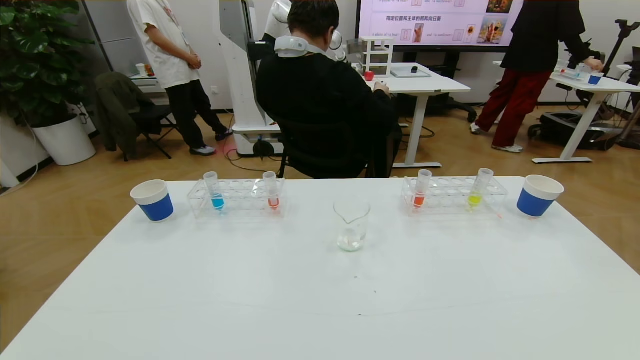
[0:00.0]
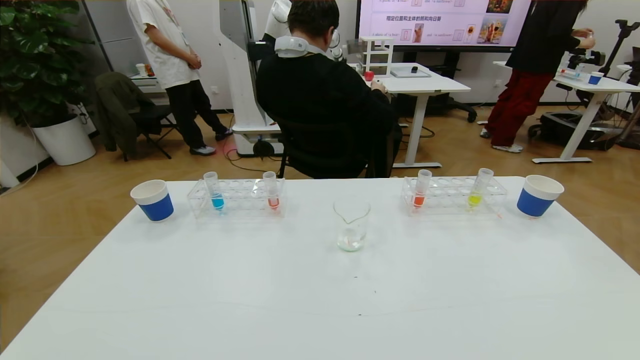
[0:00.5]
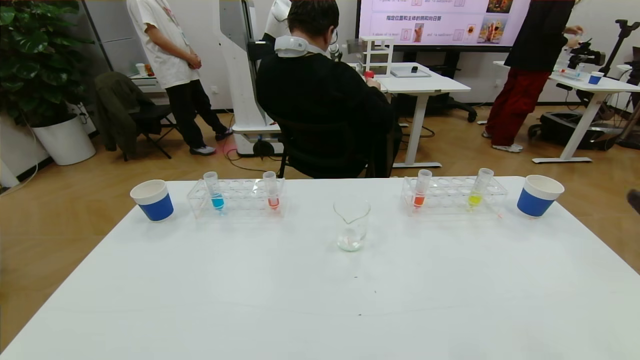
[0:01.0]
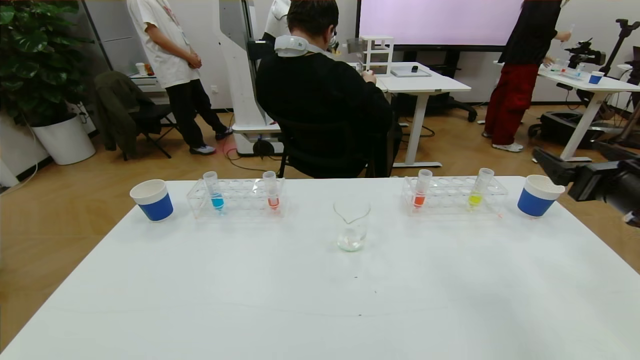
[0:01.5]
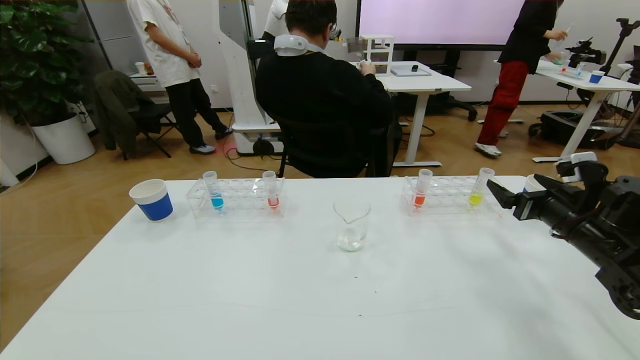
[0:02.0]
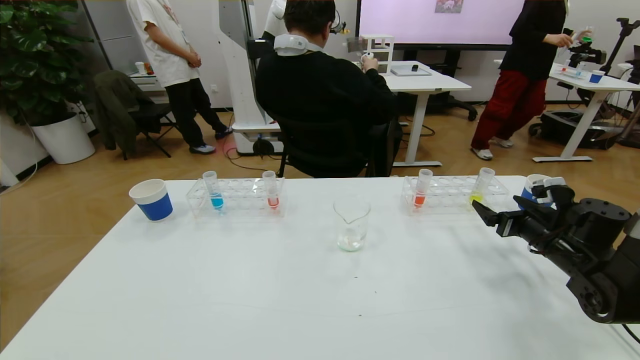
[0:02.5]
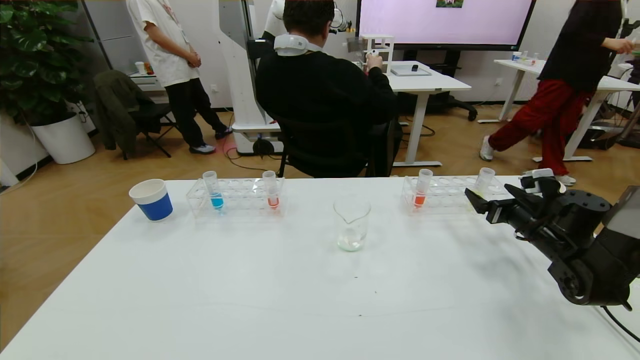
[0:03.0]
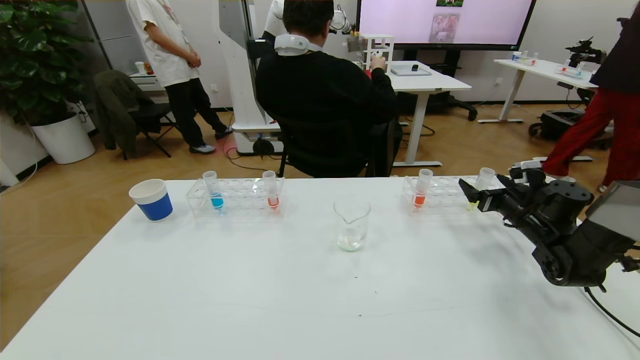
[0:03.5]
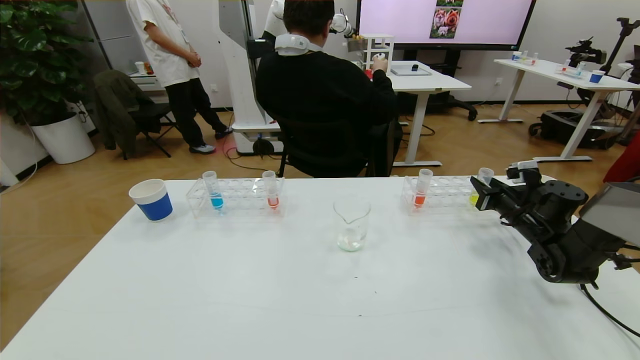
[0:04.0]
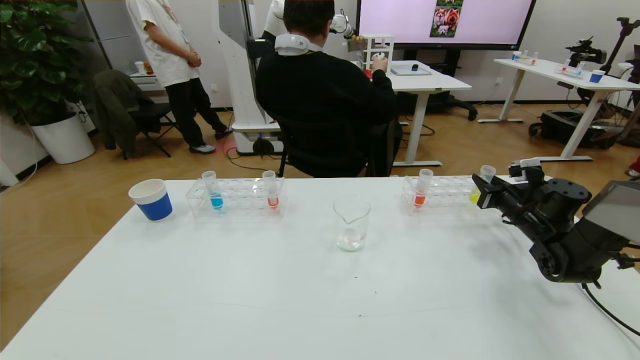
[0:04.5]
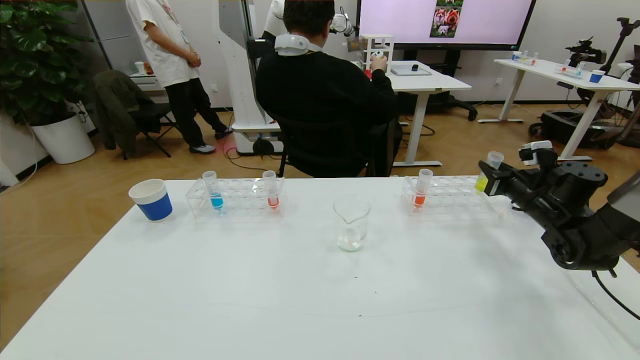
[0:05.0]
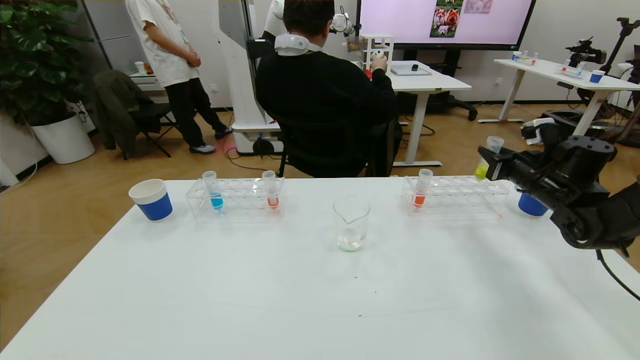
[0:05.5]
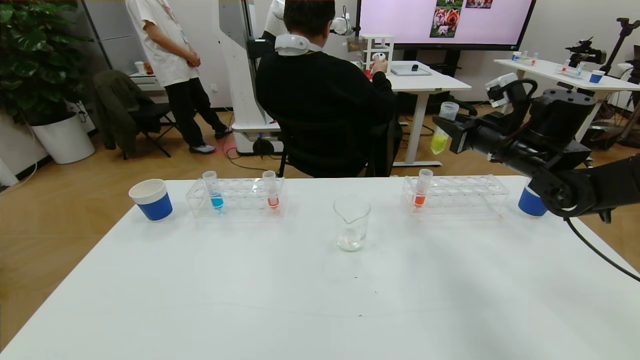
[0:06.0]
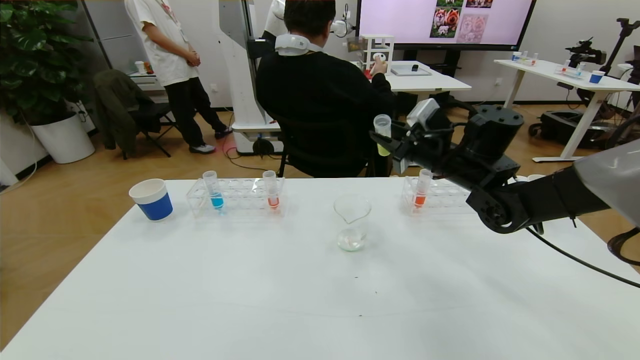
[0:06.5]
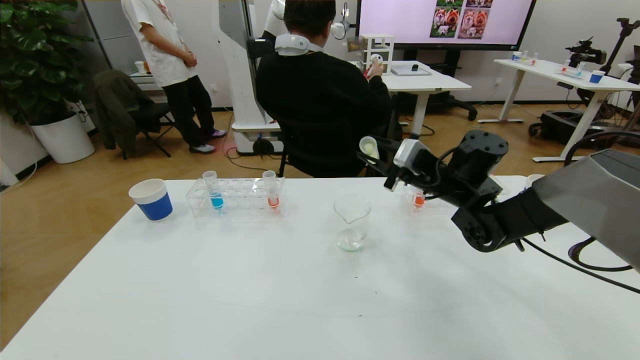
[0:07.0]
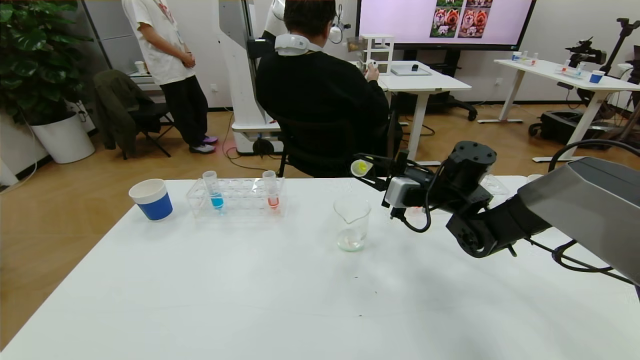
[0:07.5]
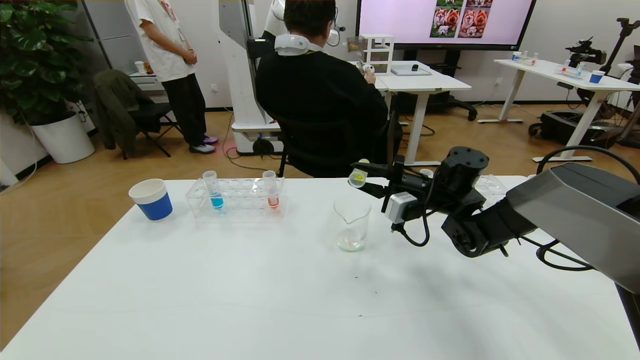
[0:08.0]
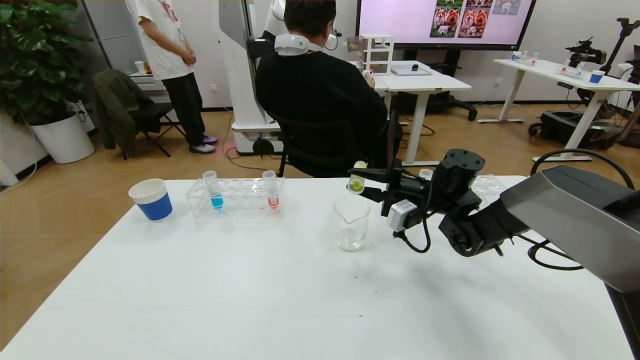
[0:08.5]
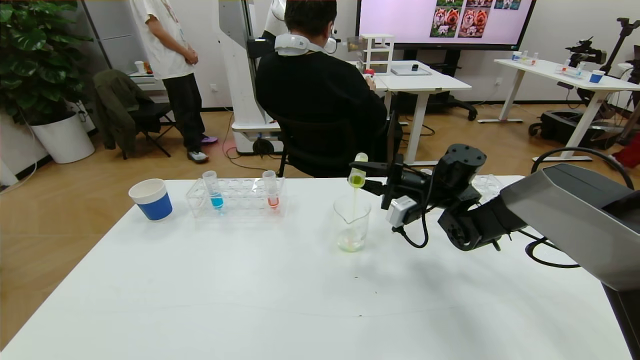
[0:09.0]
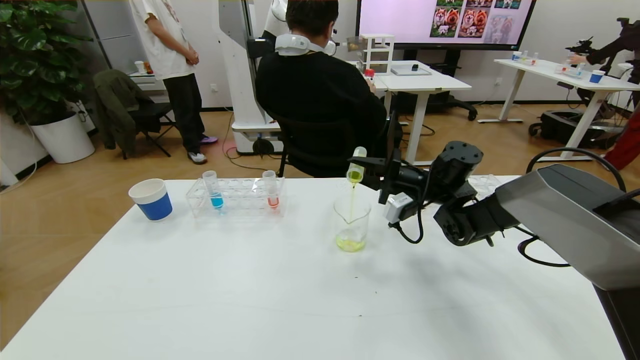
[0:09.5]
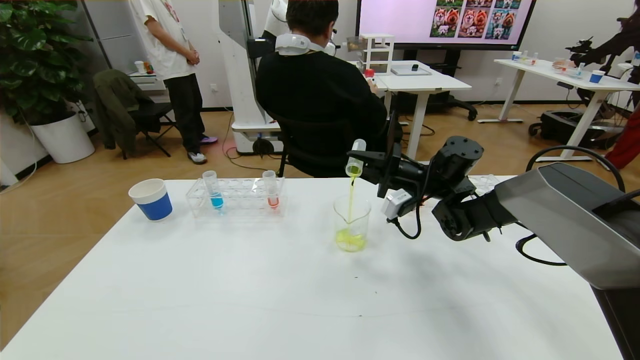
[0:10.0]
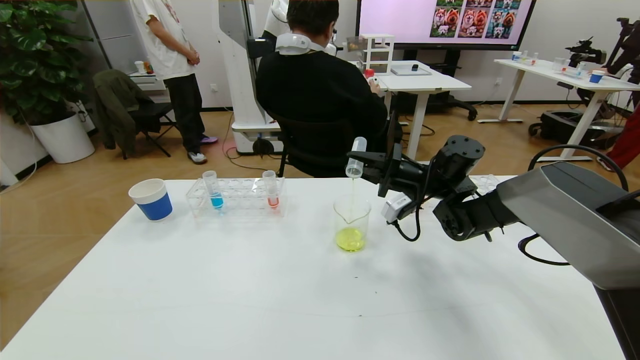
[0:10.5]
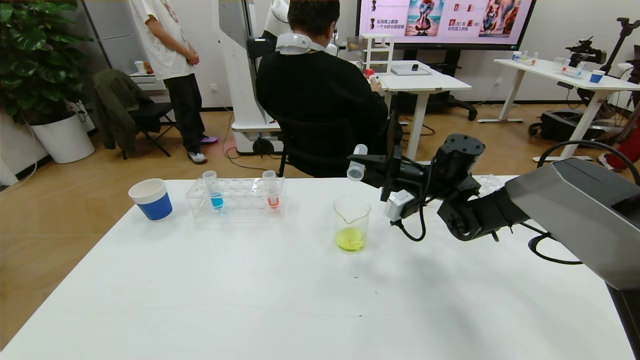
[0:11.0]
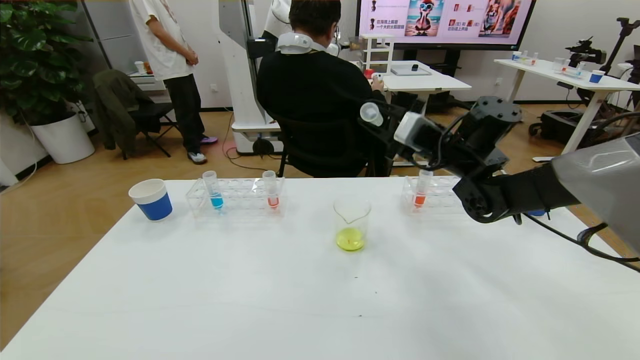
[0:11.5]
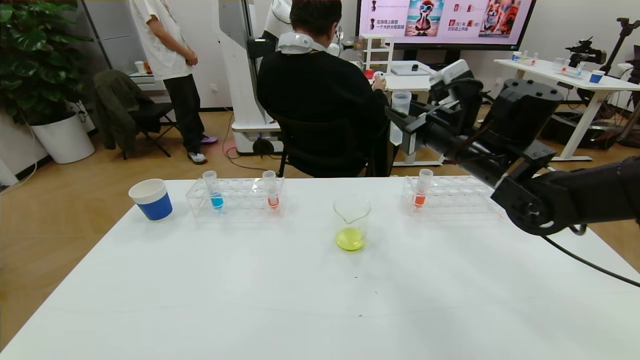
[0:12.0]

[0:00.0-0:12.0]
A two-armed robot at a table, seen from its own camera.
Task of the whole recording: pick up the test tube with yellow pigment and the test tube with blue pigment by grippers and pour them into the beaker.
0:00.0 to 0:02.0: The right gripper is displaced forward by about 35 cm.
0:02.0 to 0:04.0: The right gripper travels forward and downward by about 10 cm, and closes up.
0:04.0 to 0:06.0: The right gripper travels upward and to the left by roughly 20 cm.
0:06.0 to 0:08.0: The right gripper shifts roughly 15 cm to the left and downward.
0:08.0 to 0:10.0: There are only small adjustments of the grippers.
0:10.0 to 0:12.0: The right gripper travels upward and backward by roughly 15 cm.

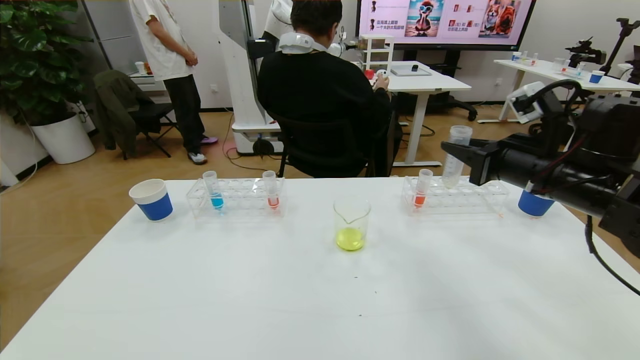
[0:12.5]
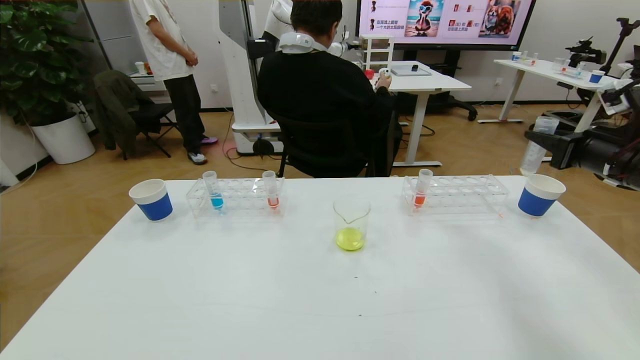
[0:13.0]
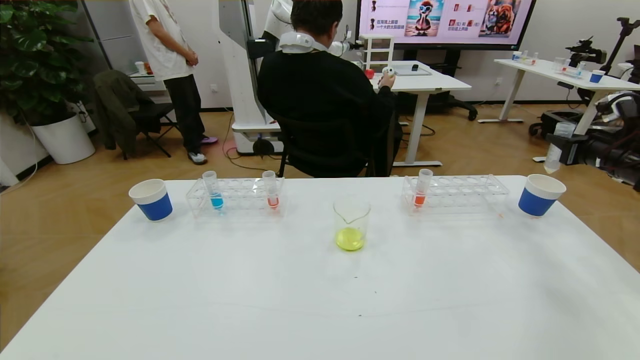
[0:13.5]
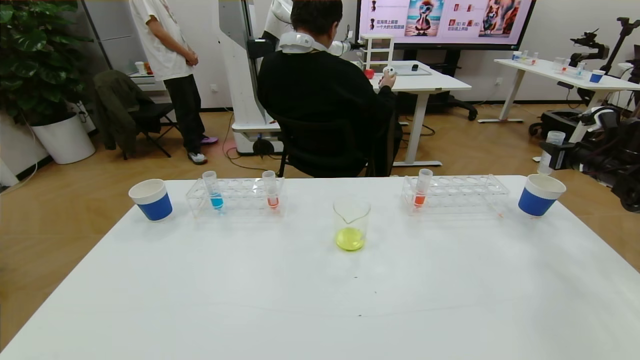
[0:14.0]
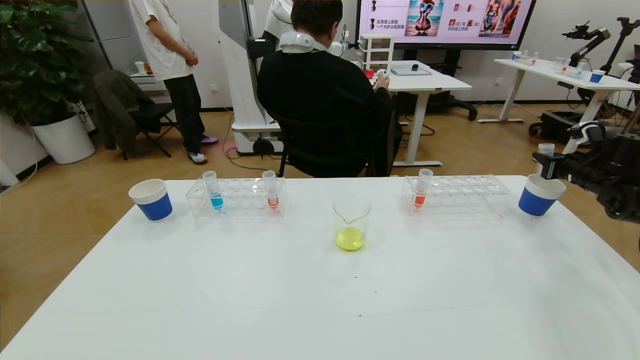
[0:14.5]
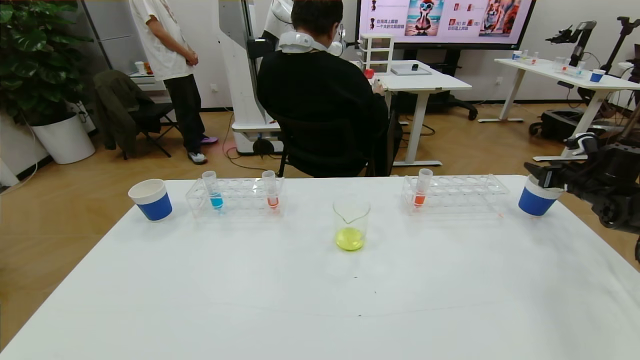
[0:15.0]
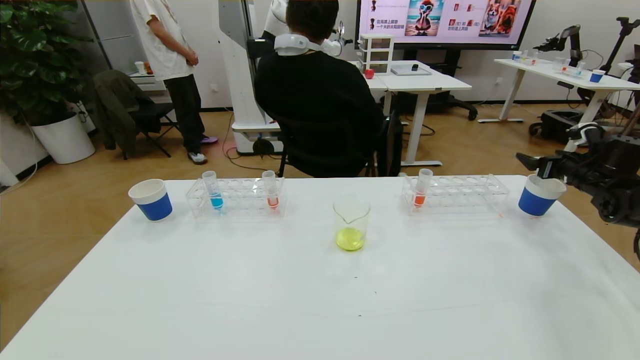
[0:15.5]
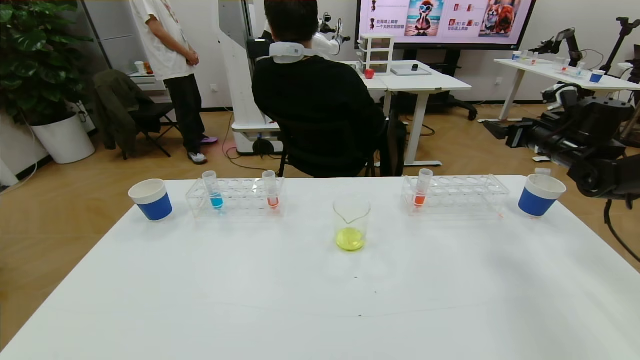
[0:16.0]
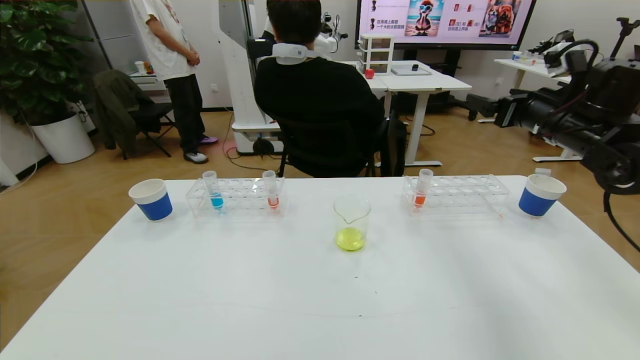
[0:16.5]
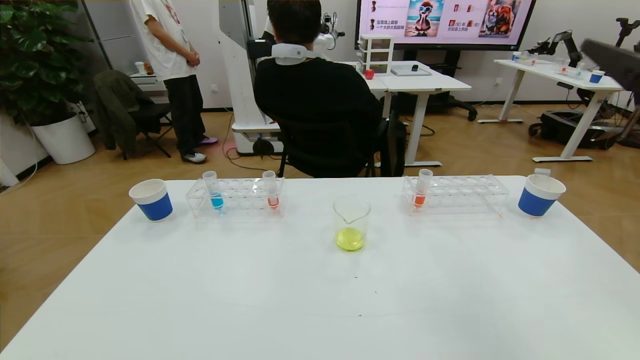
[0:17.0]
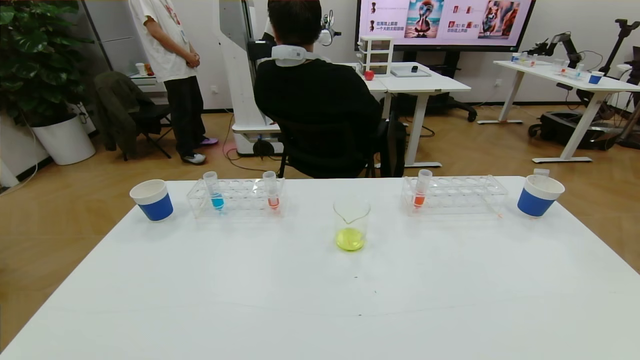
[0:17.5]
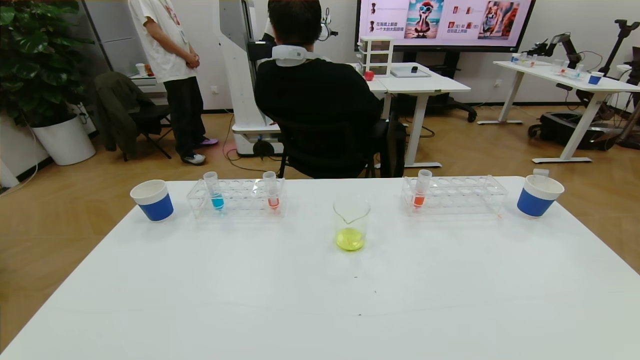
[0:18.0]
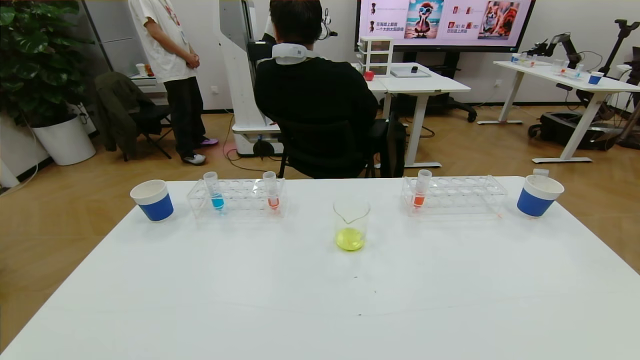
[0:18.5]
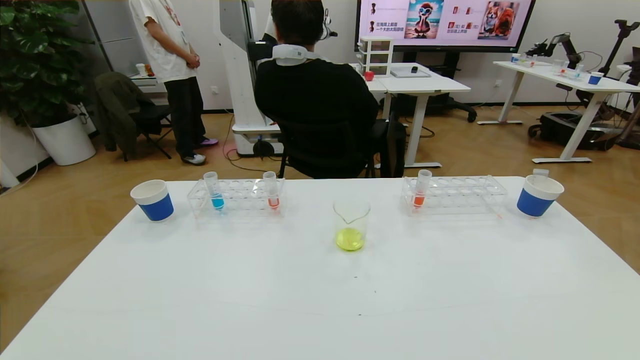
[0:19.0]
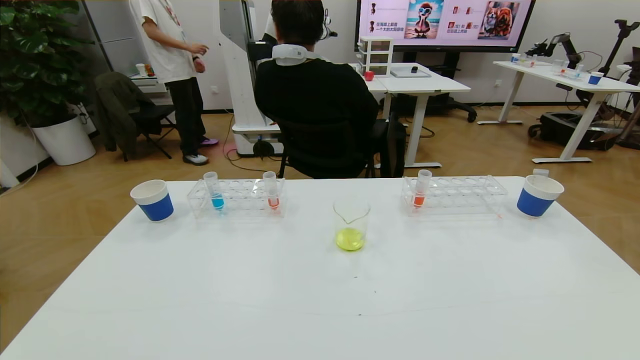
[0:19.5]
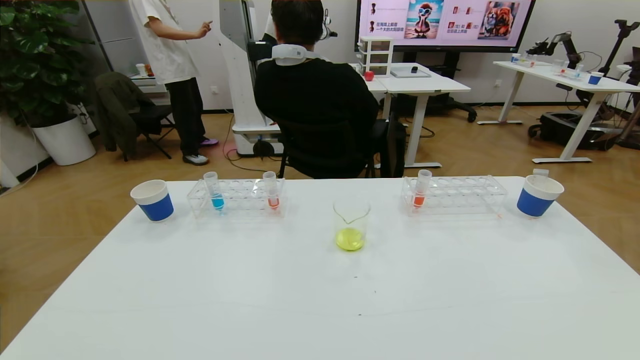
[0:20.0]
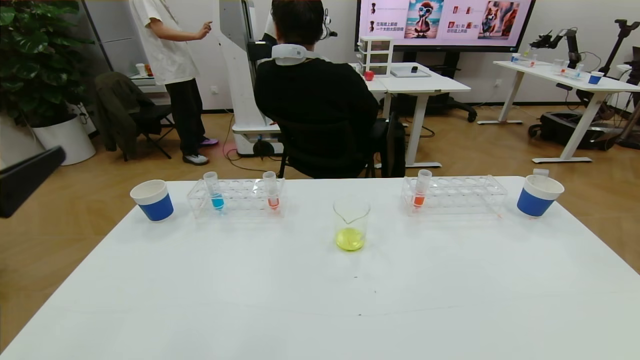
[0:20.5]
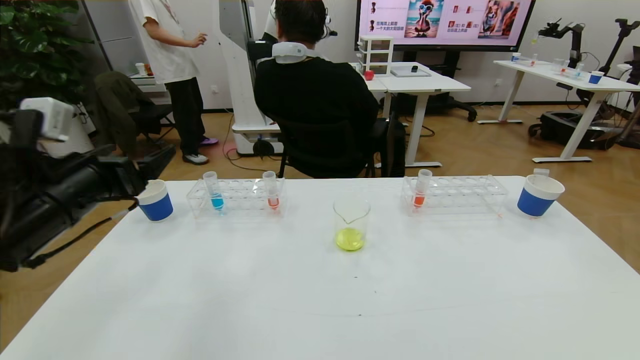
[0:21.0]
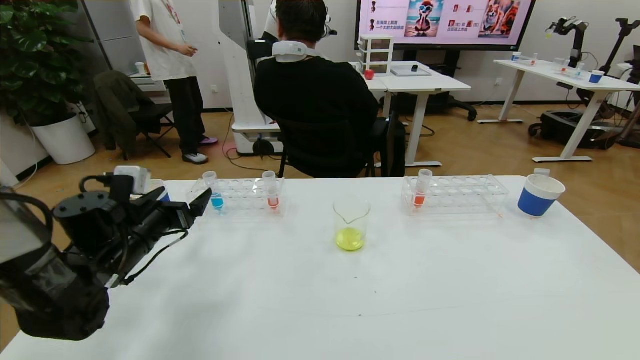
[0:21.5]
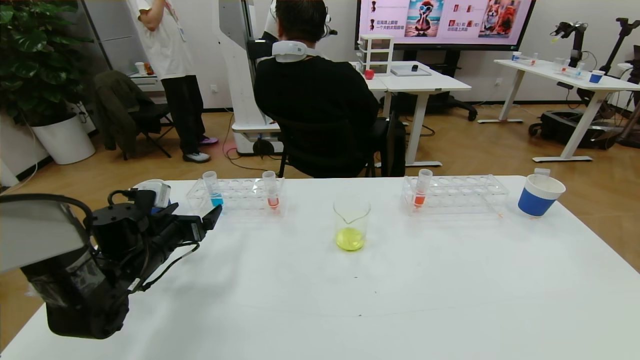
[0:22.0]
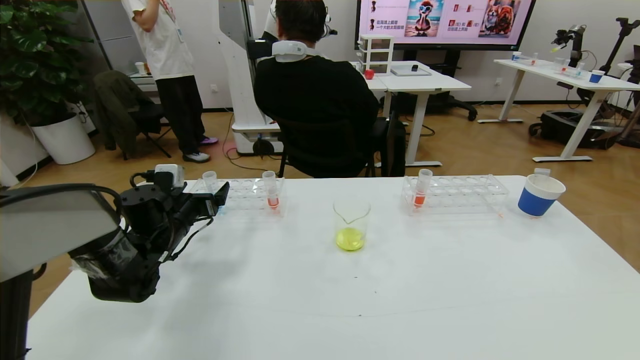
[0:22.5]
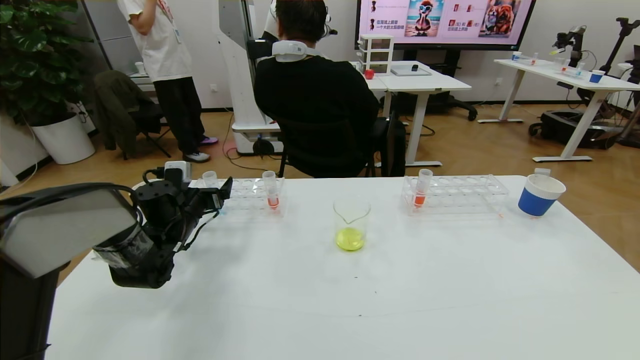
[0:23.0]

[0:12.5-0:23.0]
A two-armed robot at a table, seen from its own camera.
Task of the whole recording: pick up the test tube with yellow pigment and the test tube with blue pigment by grippers and pour them into the beaker.
Step, 0:12.5 to 0:17.5: Pour the yellow reagent into the graduated cylinder and place the test tube into the paper cup.
0:12.5 to 0:14.5: The right gripper travels to the right and forward by some 30 cm.
0:14.5 to 0:16.5: The right gripper shifts roughly 25 cm to the left and upward, and opens its fingers.
0:16.5 to 0:19.0: The right gripper is displaced backward and downward by roughly 40 cm.
0:19.0 to 0:21.0: The left gripper goes some 30 cm forward and upward.
0:21.0 to 0:23.0: The left gripper heads forward and downward, covering roughly 20 cm.
